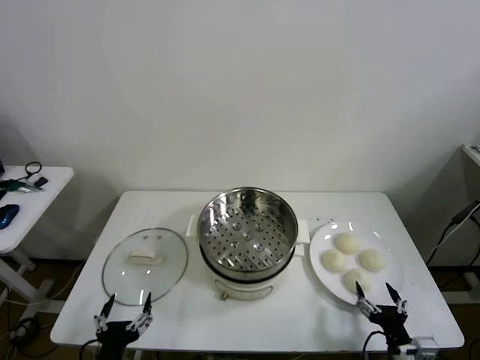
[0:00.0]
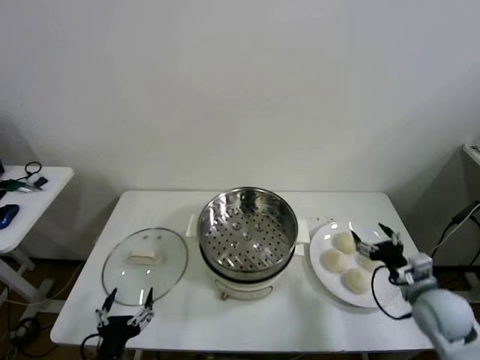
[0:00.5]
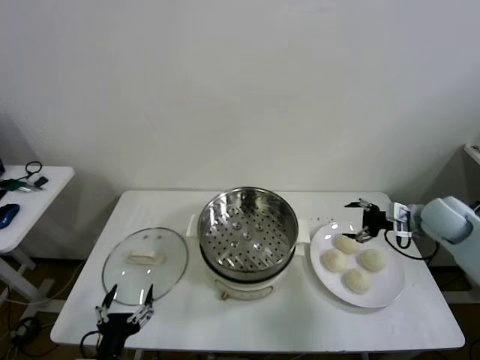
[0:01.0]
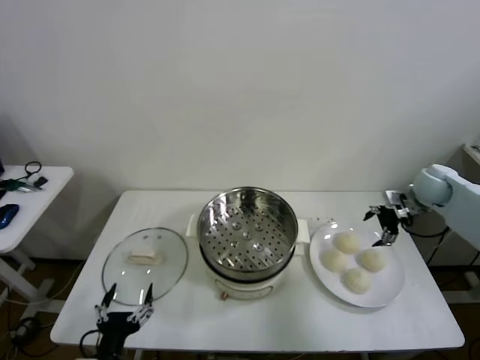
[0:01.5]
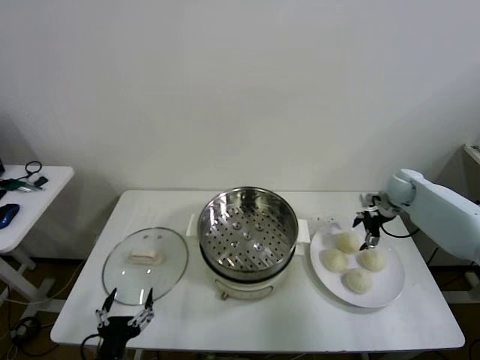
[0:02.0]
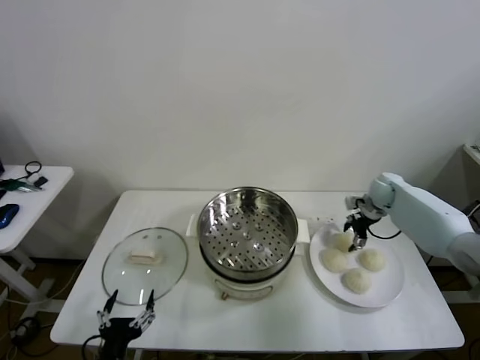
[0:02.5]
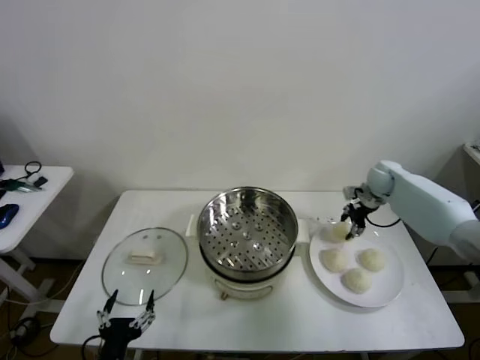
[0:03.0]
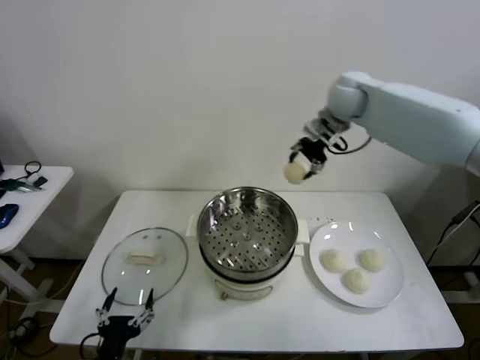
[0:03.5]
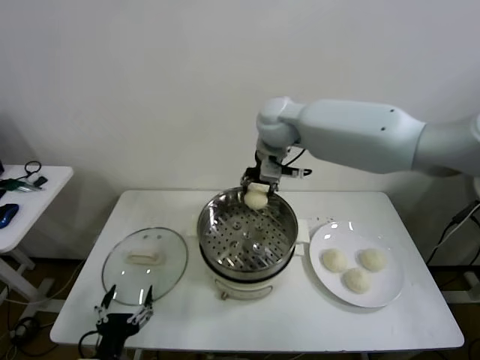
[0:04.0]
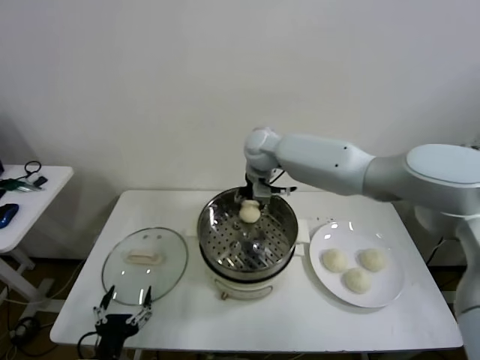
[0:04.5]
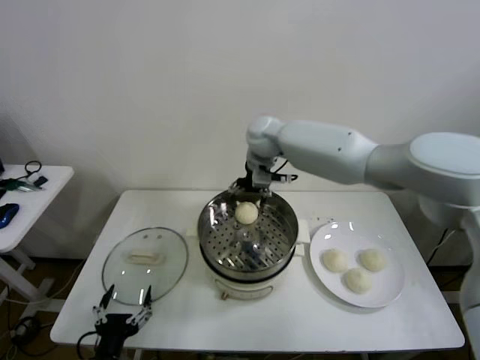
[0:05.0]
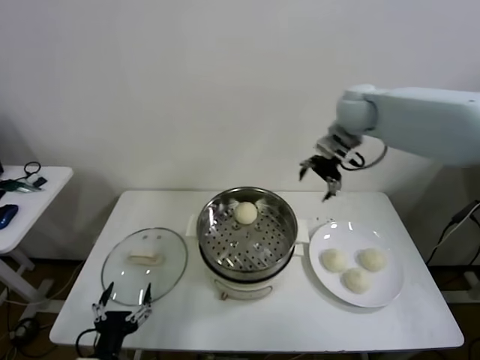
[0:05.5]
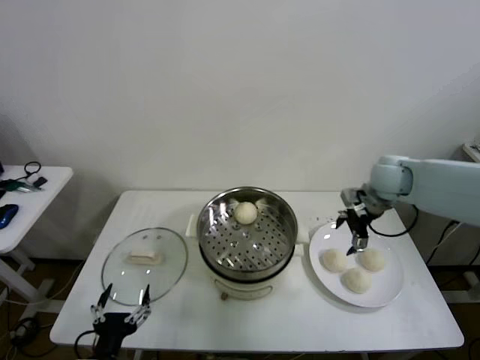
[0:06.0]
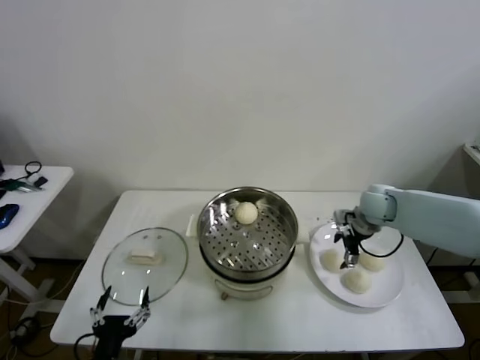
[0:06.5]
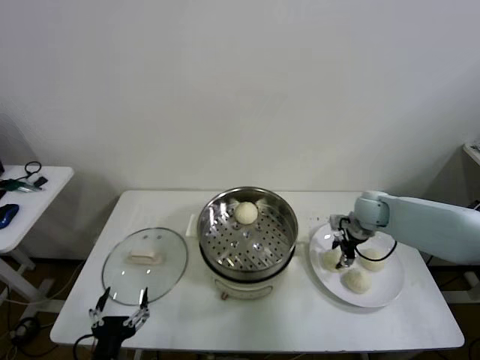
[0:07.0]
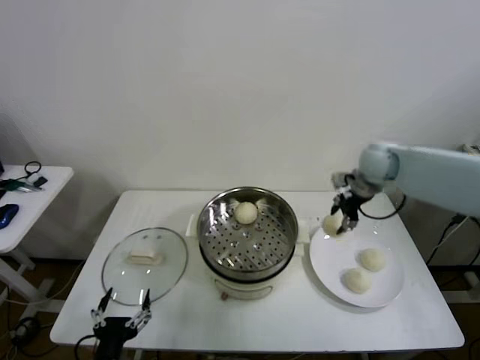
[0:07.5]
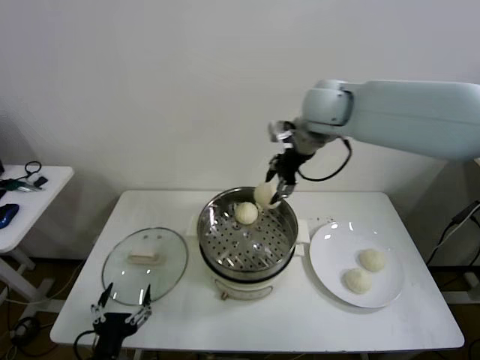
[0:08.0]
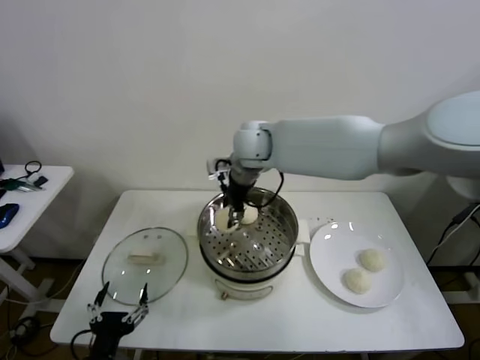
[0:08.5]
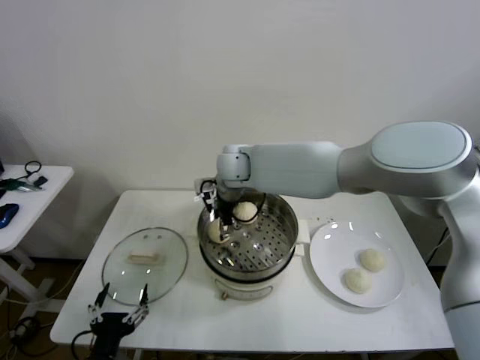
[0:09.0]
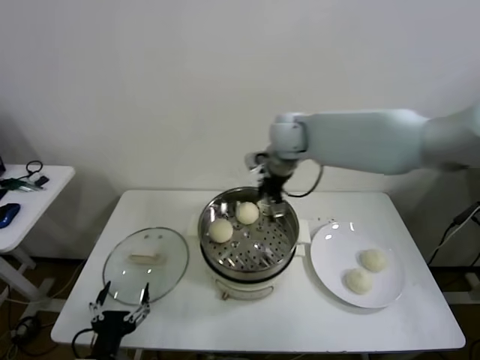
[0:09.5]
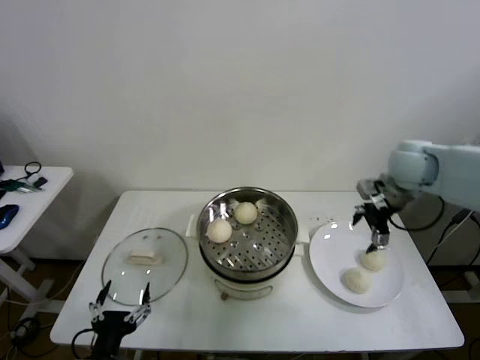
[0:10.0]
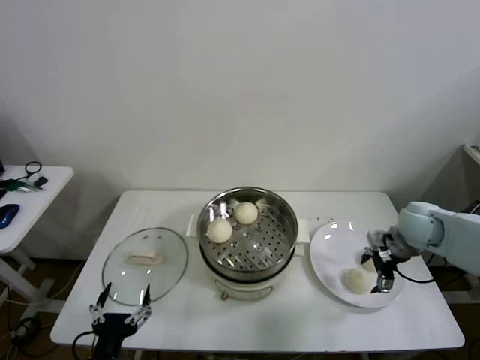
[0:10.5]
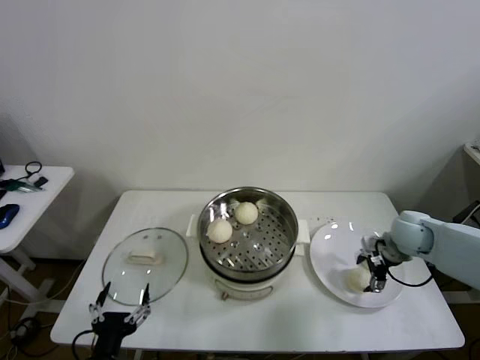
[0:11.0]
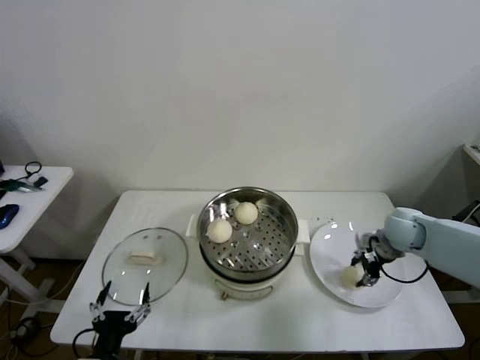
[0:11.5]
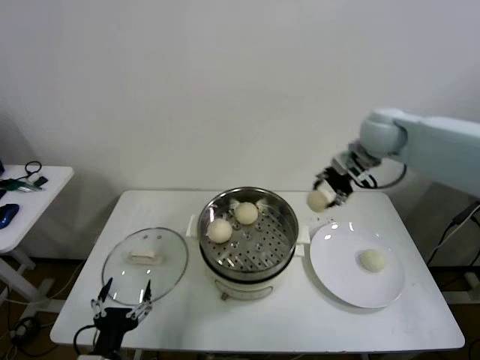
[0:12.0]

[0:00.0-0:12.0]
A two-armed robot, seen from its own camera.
Task of the whole recording: take steamed baozi put them in steamer then cover it.
Step, 0:00.0 to 0:02.5: Grasp the baozi in the plate with right gripper.
Step, 0:03.0 to 0:04.5: Place the baozi on the steamer with right gripper.
Step, 0:05.0 to 0:07.0: Grasp the baozi in the plate with right gripper.
Step, 0:07.5 to 0:09.0: Place the baozi on the steamer with right gripper.
Step, 0:09.5 to 0:11.5: Grasp the baozi in the plate with right gripper.
0:02.0 to 0:04.0: The right gripper is displaced to the left and upward by approximately 40 cm, and closes its fingers.
0:04.0 to 0:06.0: The right gripper moves to the right and downward, some 30 cm, and opens its fingers.
0:06.0 to 0:08.0: The right gripper heads to the left and upward, covering roughly 25 cm, and closes up.
0:08.0 to 0:10.0: The right gripper moves to the right and downward, approximately 25 cm, and opens its fingers.
0:10.0 to 0:12.0: The right gripper travels to the left, upward and forward by approximately 15 cm, and closes its fingers.

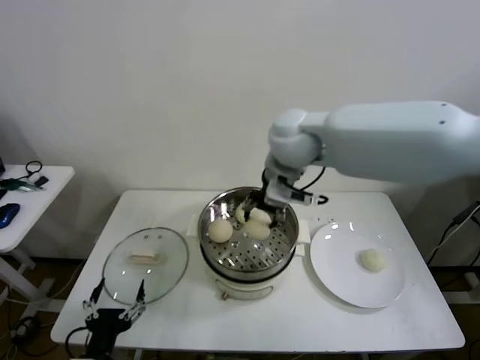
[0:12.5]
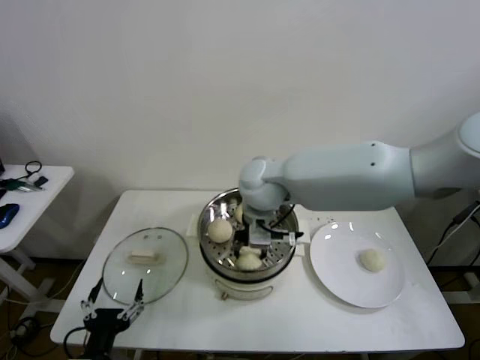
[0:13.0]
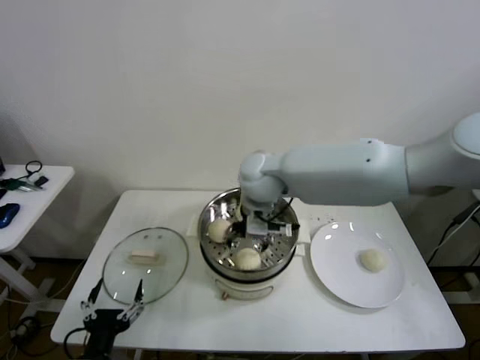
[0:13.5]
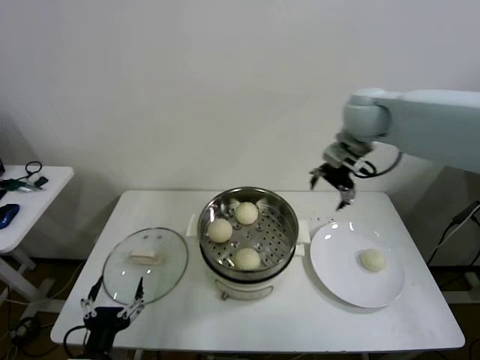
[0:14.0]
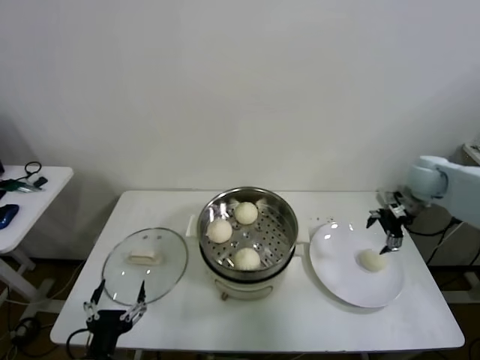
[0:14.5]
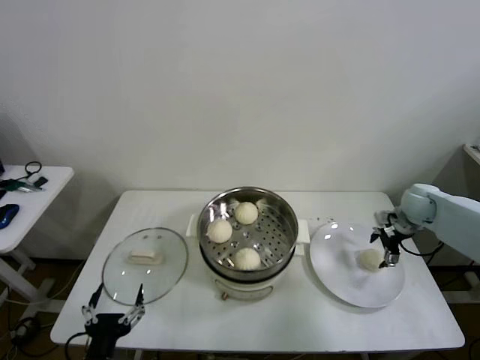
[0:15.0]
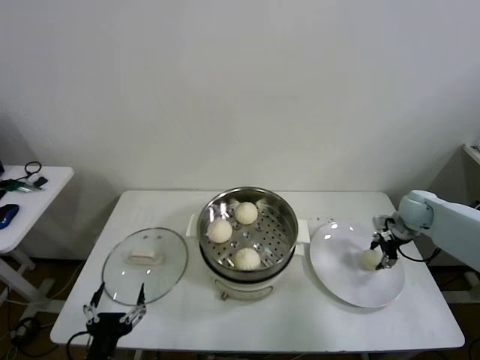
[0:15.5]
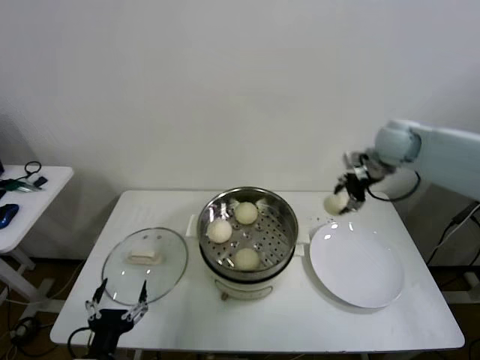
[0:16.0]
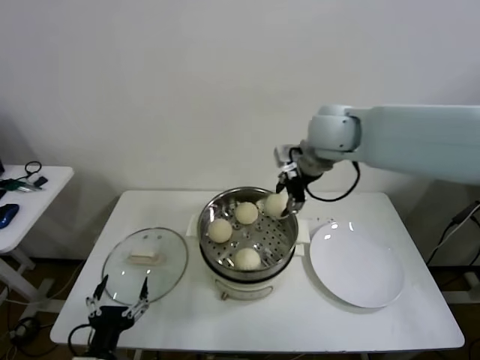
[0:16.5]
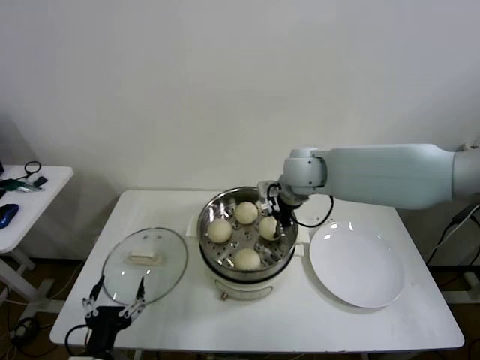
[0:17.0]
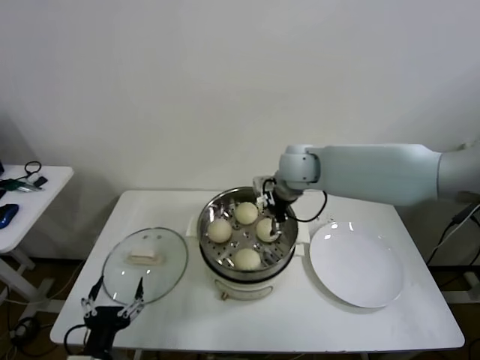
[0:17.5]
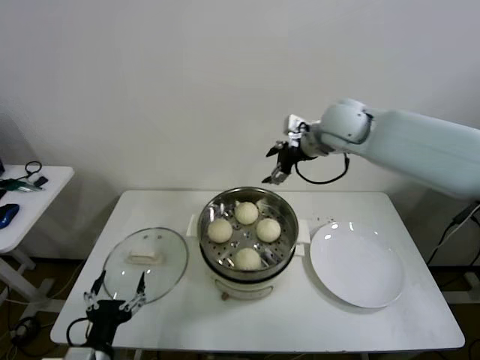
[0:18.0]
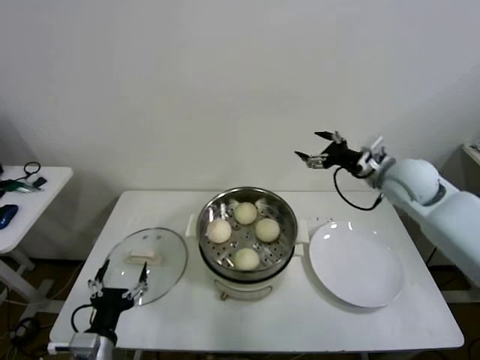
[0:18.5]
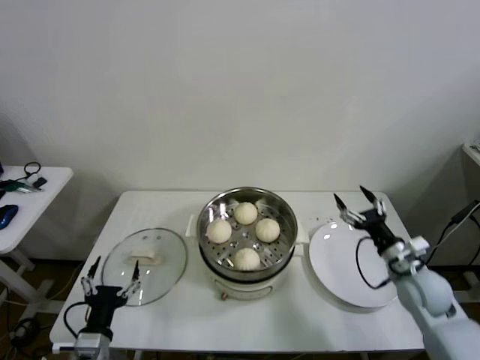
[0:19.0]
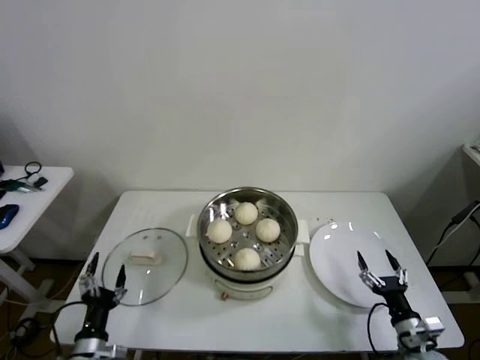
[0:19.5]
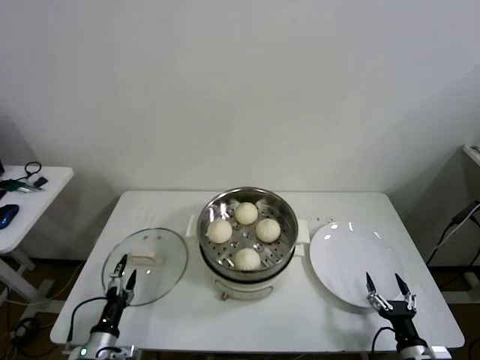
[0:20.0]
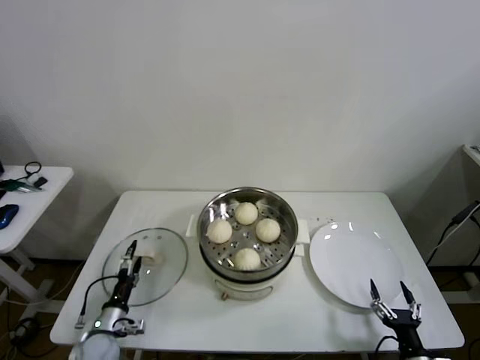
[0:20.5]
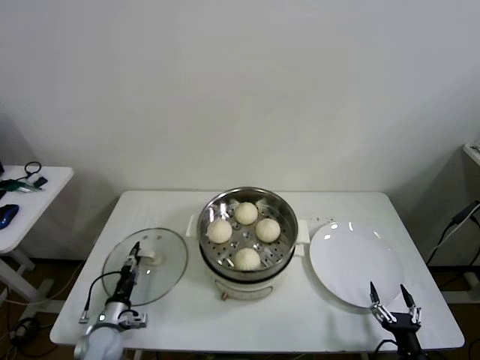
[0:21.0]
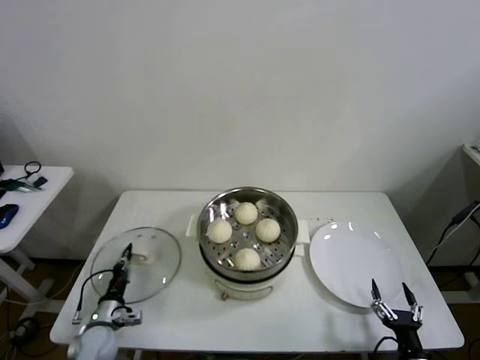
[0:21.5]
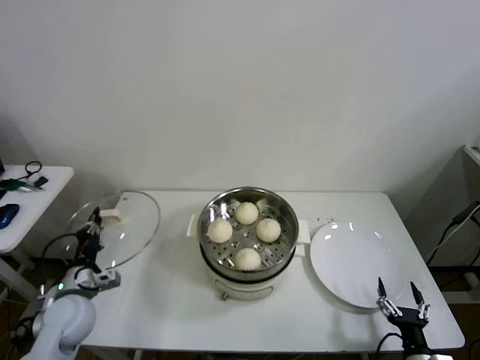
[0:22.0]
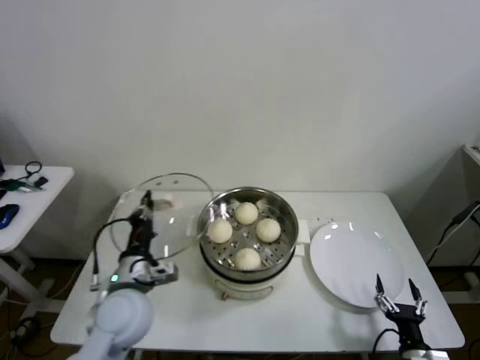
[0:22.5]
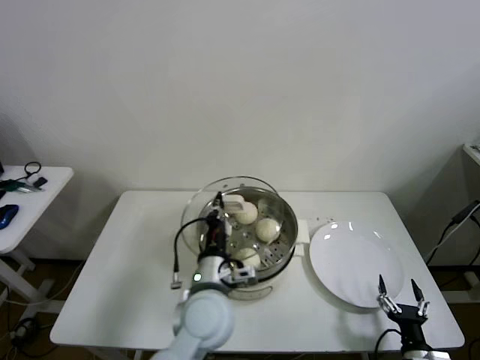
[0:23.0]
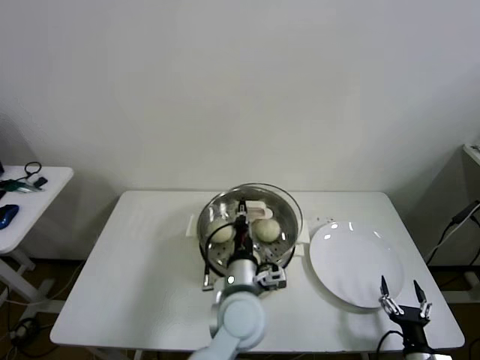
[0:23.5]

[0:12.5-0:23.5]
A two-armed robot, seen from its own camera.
Task of the whole recording: take steamed baozi put them in steamer then cover it.
Step, 0:14.0 to 0:15.5: Grasp the baozi in the plate with right gripper.
Step, 0:16.0 to 0:17.0: Place the baozi on the steamer with right gripper.
Step, 0:18.0 to 0:21.0: Grasp the pot lid with left gripper.
0:12.5 to 0:14.5: The right gripper shifts approximately 35 cm to the right and downward, and opens its fingers.
0:14.5 to 0:16.0: The right gripper shifts about 15 cm to the left and upward, and closes its fingers.
0:16.0 to 0:18.0: The right gripper shifts approximately 15 cm to the left, and opens up.
0:18.0 to 0:20.0: The right gripper is displaced downward, backward and to the right by about 60 cm, while the left gripper goes about 20 cm downward, to the left and forward.
0:20.0 to 0:21.5: The left gripper heads forward, covering about 10 cm, and closes.
0:21.5 to 0:23.5: The left gripper is displaced to the right and upward by about 40 cm.

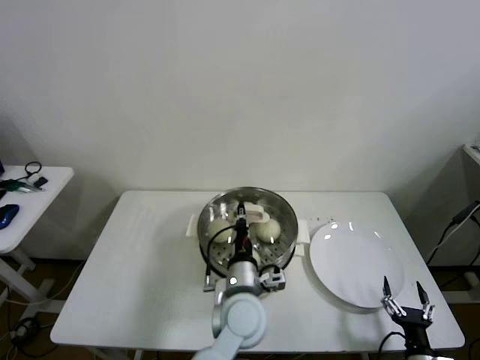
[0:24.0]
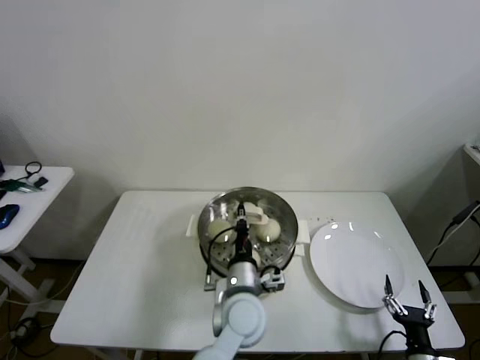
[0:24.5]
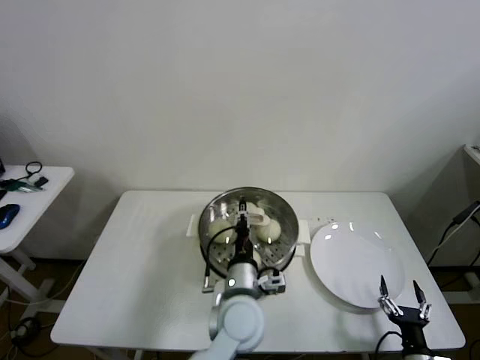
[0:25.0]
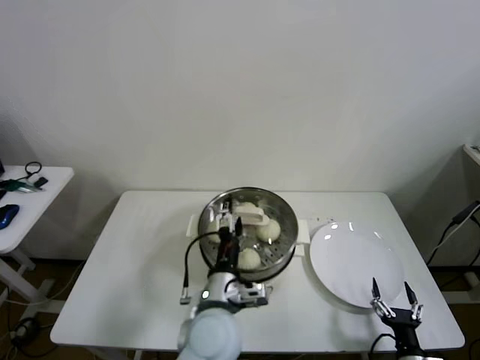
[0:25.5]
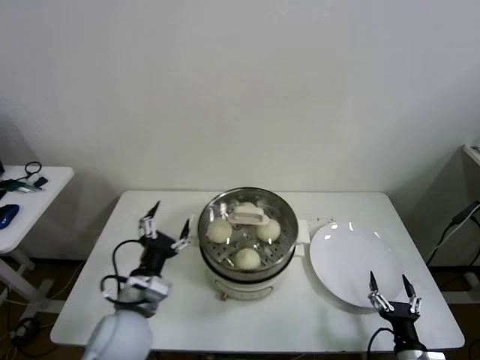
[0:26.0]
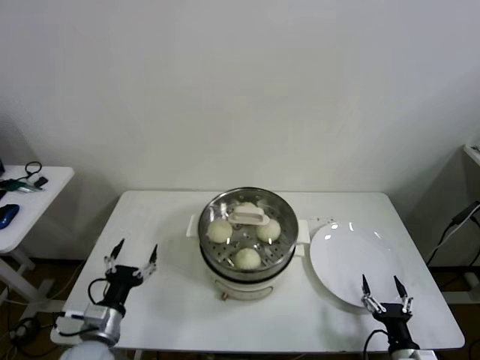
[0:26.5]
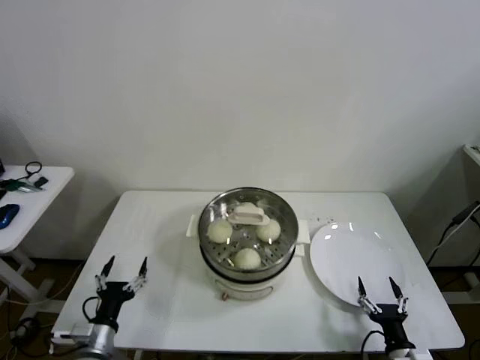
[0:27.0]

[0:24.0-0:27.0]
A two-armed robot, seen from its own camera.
Task of the whole recording: take steamed baozi put them in steamer then cover it.
0:24.0 to 0:25.5: The left gripper moves about 5 cm, and opens its fingers.
0:25.5 to 0:27.0: The left gripper travels to the left and downward by about 30 cm.
